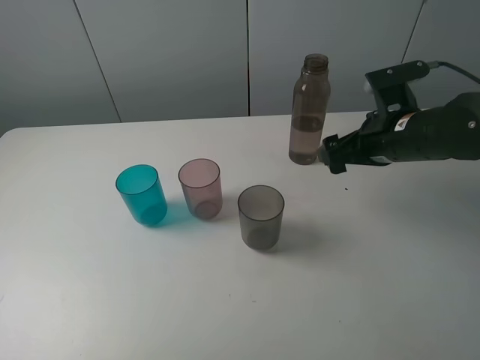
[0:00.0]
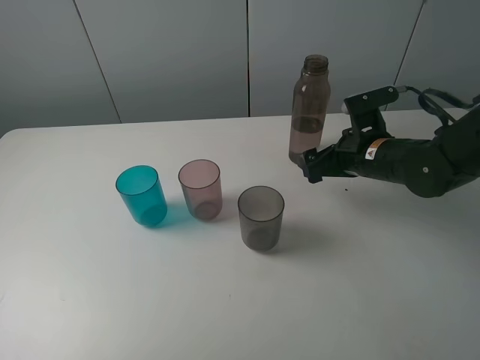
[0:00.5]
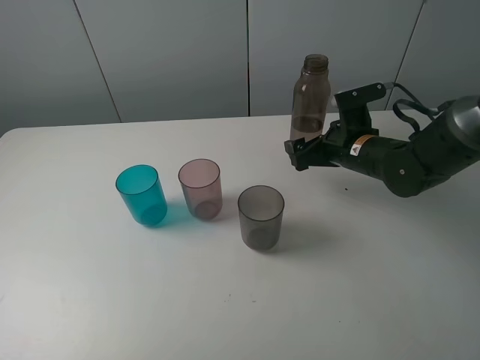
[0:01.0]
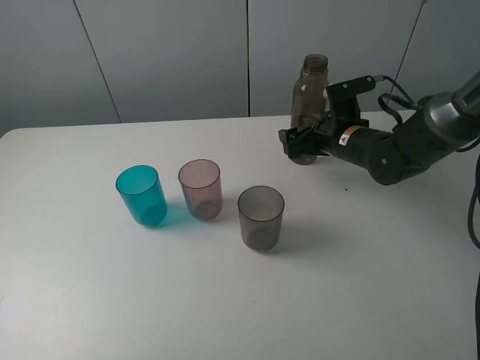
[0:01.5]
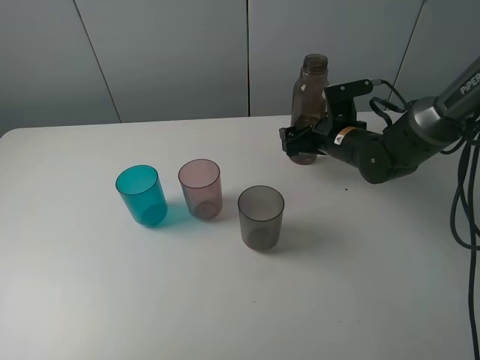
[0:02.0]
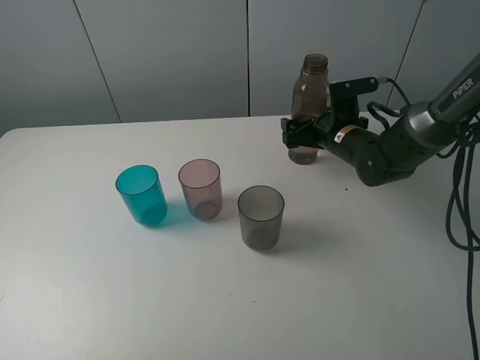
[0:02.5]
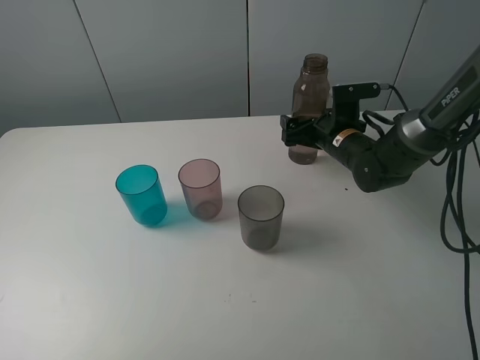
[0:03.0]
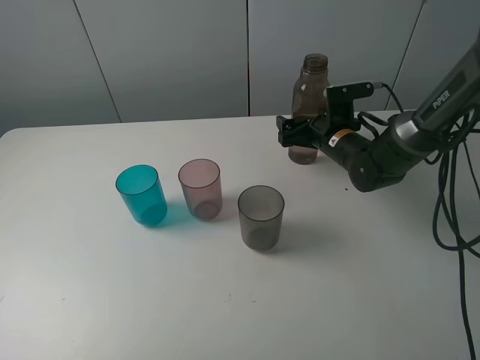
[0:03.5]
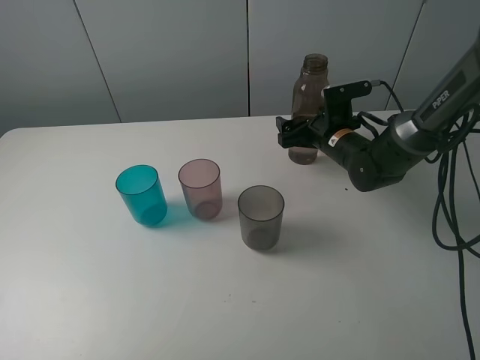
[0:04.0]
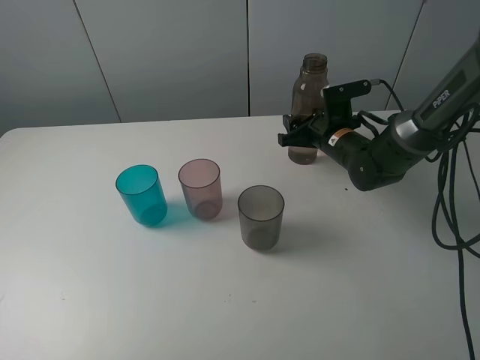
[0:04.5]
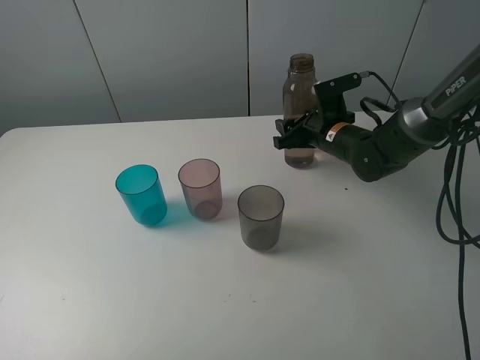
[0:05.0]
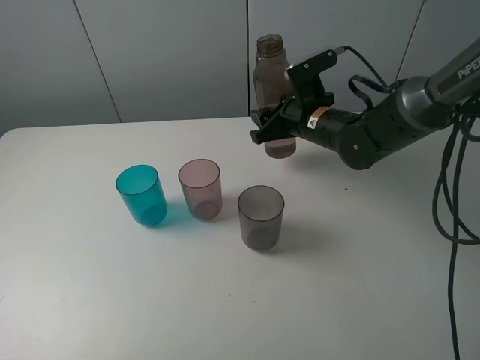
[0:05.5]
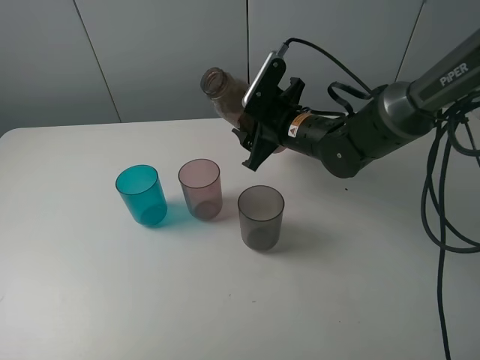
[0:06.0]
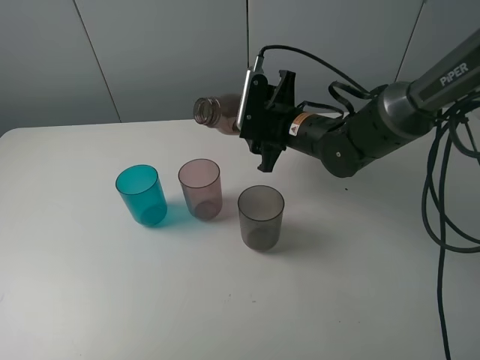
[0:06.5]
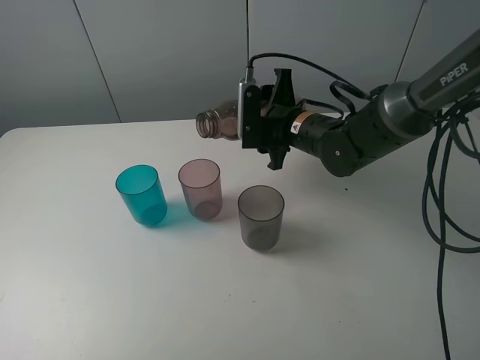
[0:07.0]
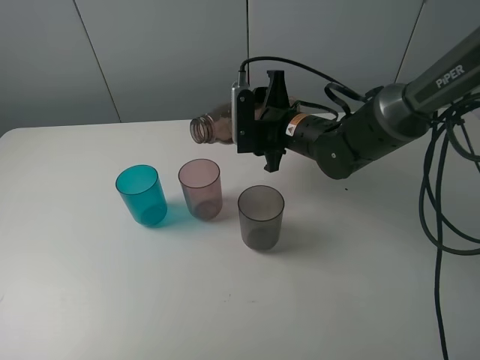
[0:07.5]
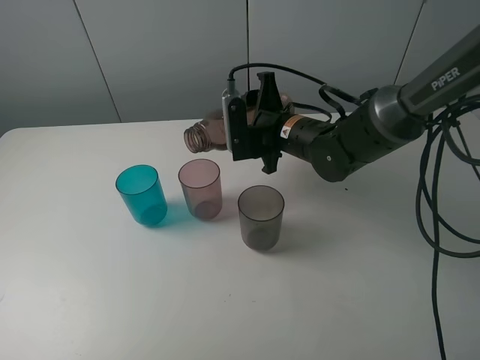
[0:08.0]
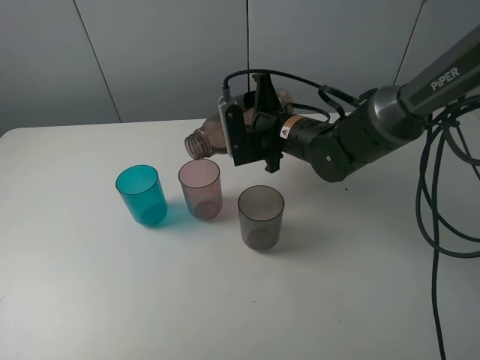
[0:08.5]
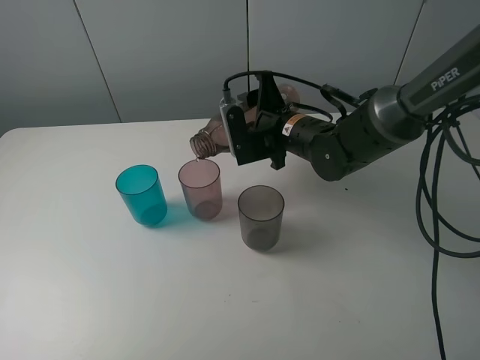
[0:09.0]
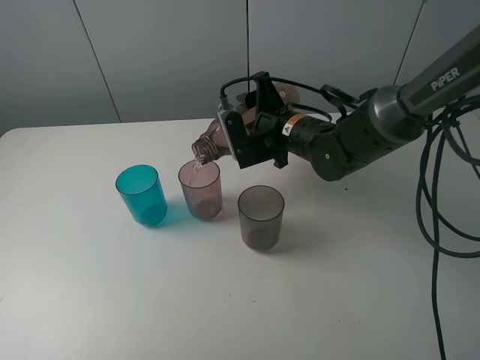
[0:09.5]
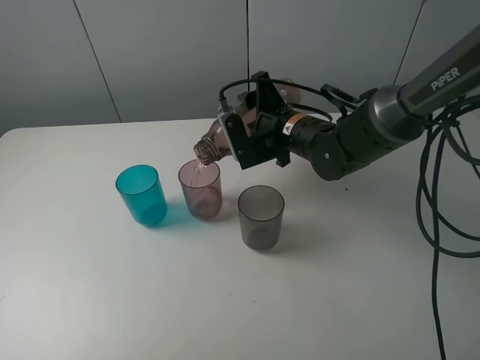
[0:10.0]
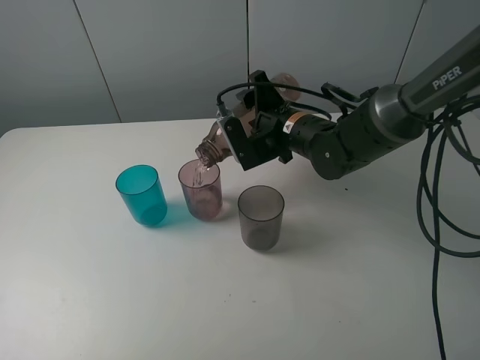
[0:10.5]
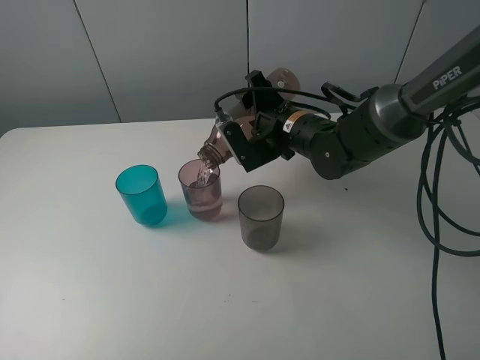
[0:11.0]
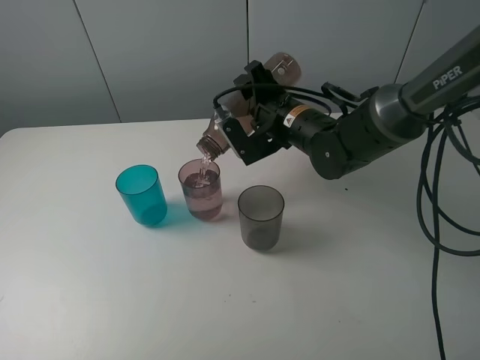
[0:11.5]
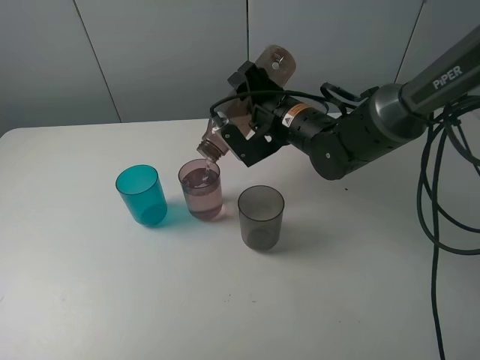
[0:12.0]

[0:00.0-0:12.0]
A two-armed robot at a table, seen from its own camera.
Task of the whole recording: pick up the bottle filled with water and pour water into the middle cup of the three cups.
Step, 0:00.0 to 0:04.5: Grasp the brown bottle with the right gripper.
0:00.0 to 0:02.0: The right gripper goes approximately 10 cm forward and downward.
0:02.0 to 0:04.0: The grippers stay close to where they were, moving slightly.
0:04.0 to 0:06.0: The right gripper moves to the left and upward, about 10 cm, and closes its fingers.
0:08.0 to 0:10.0: The grippers make only small movements.

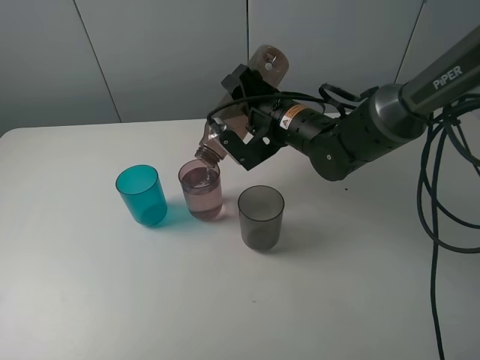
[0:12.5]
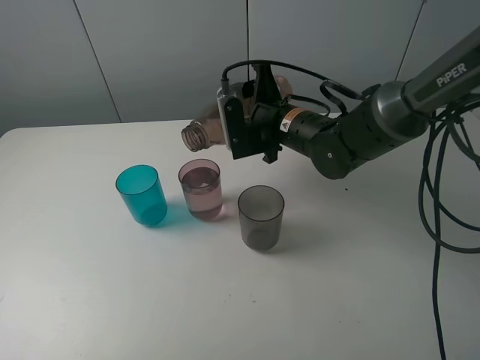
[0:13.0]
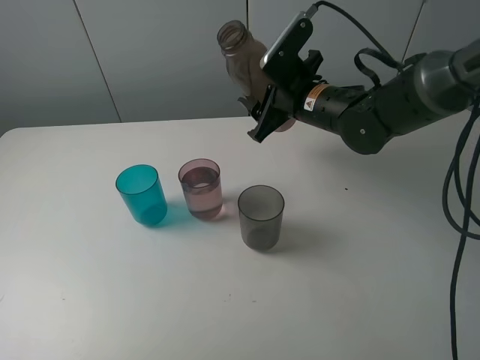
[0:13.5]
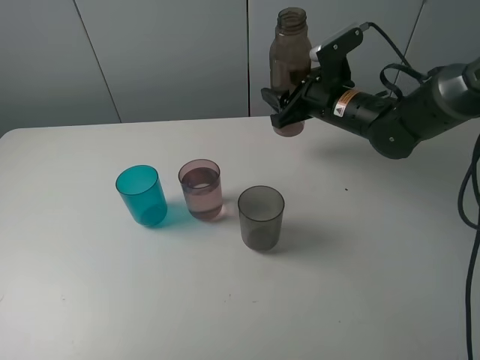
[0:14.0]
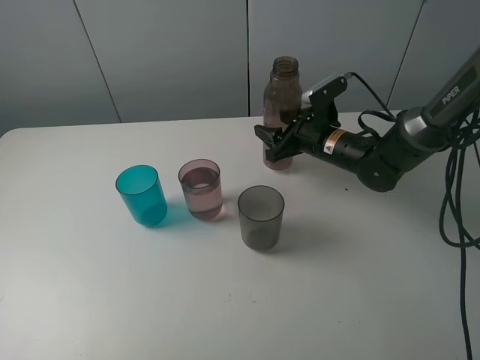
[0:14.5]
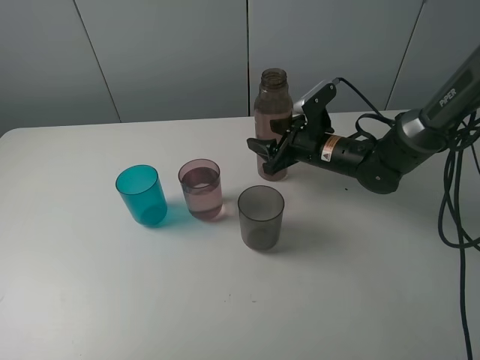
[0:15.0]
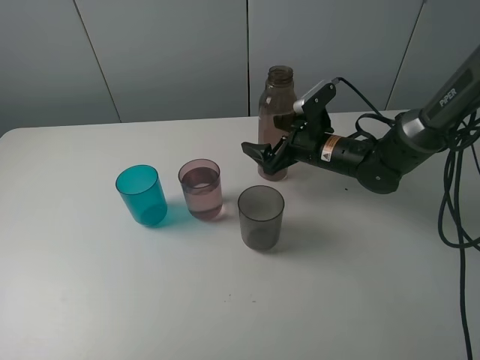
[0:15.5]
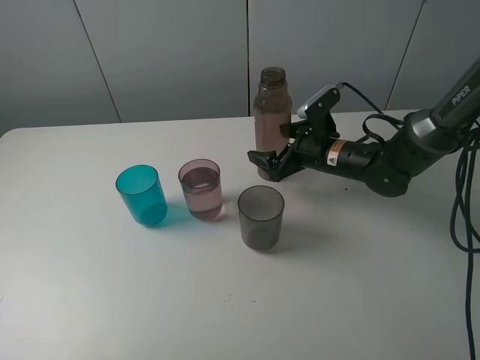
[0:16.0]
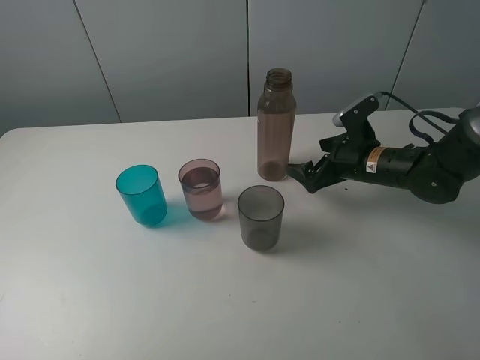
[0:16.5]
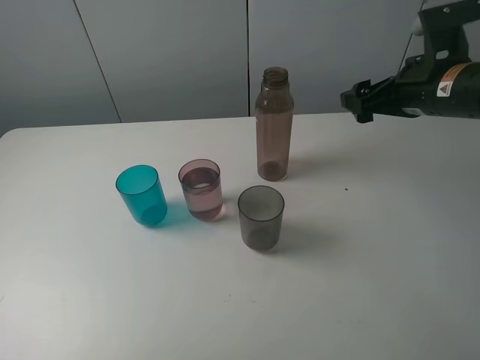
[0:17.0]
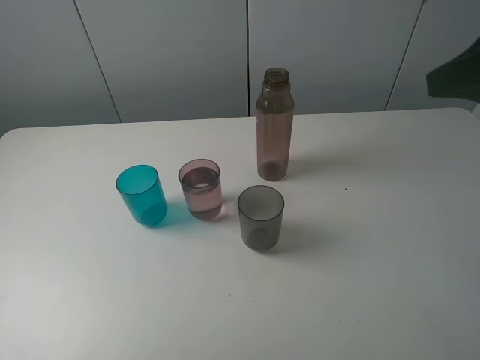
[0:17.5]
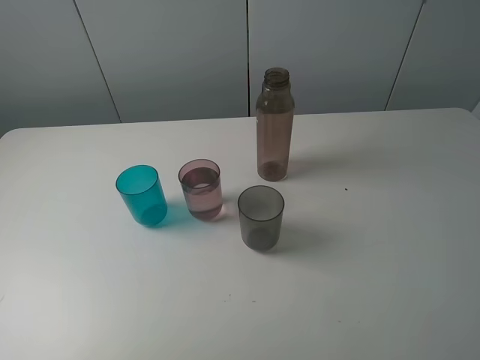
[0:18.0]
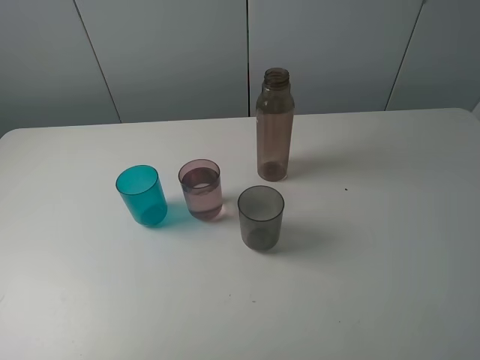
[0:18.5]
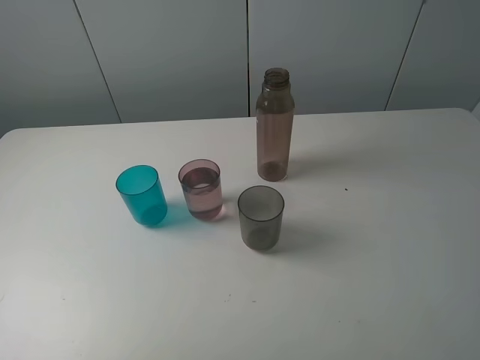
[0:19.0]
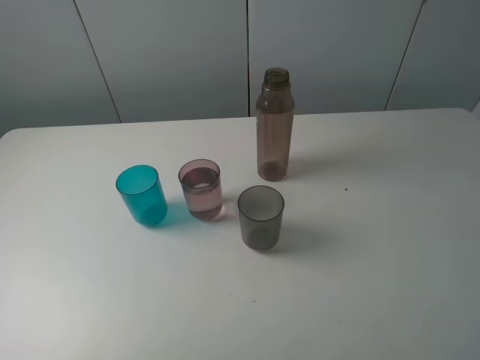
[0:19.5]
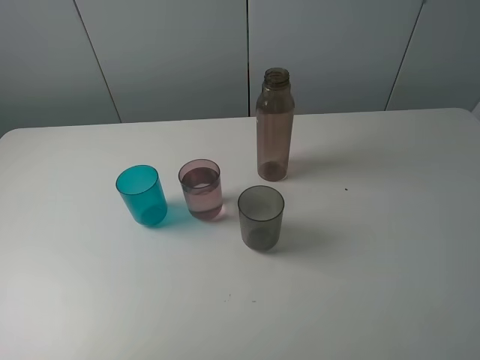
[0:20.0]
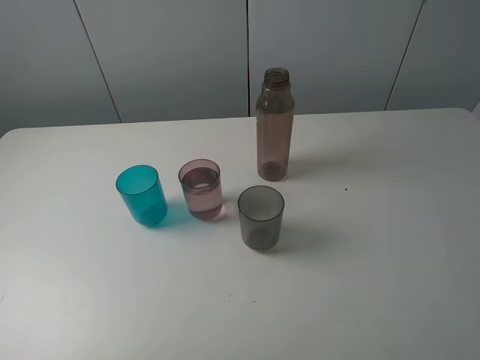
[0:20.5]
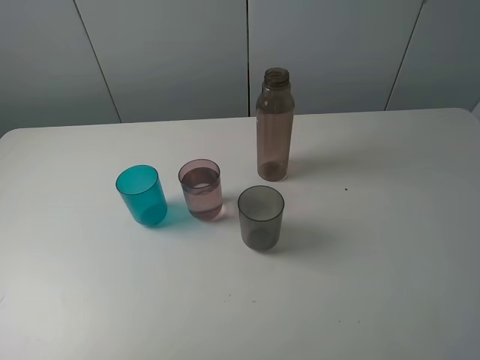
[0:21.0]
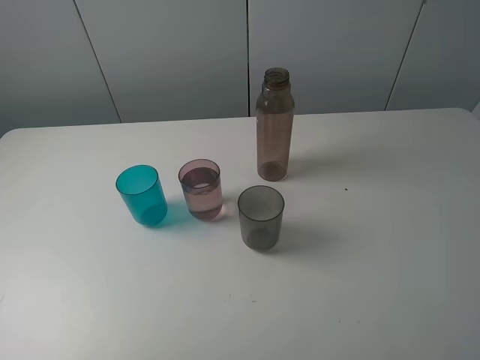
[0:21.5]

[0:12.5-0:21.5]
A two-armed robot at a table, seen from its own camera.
Task of the whole recording: pick up the bottle filled with water and pour water into the middle cup of the three cups.
Step, 0:14.0 to 0:17.0: Place the brown bottle with the right gripper.
0:12.5 to 0:14.5: The right gripper travels to the right and downward by approximately 10 cm.
0:14.5 to 0:17.0: The right gripper heads upward, to the right and backward, covering approximately 20 cm, and opens up.
0:17.0 to 0:19.5: The right gripper moves backward, approximately 30 cm.
0:19.5 to 0:21.5: Both grippers stay about where they are.

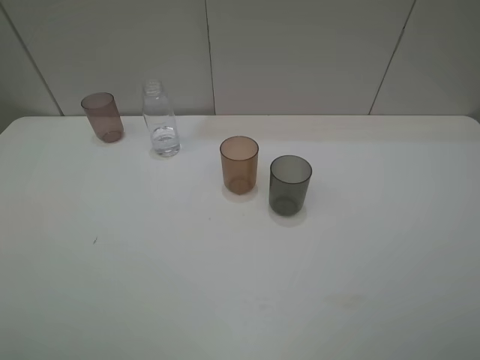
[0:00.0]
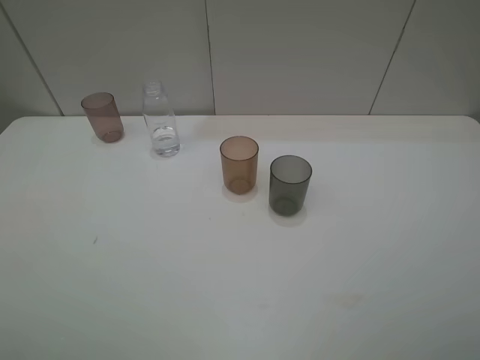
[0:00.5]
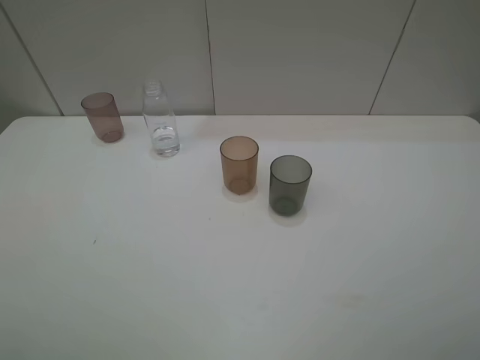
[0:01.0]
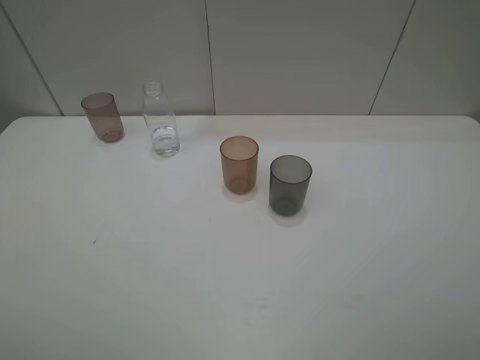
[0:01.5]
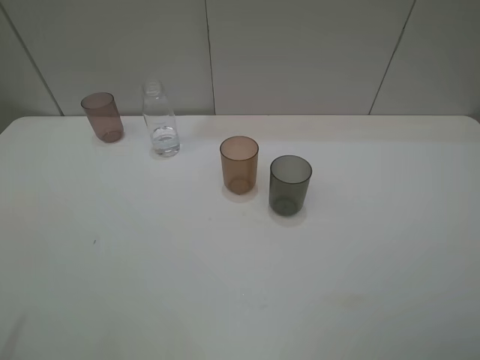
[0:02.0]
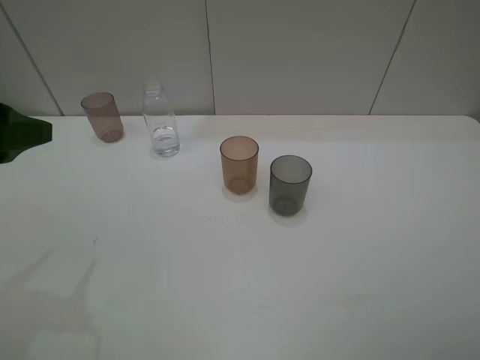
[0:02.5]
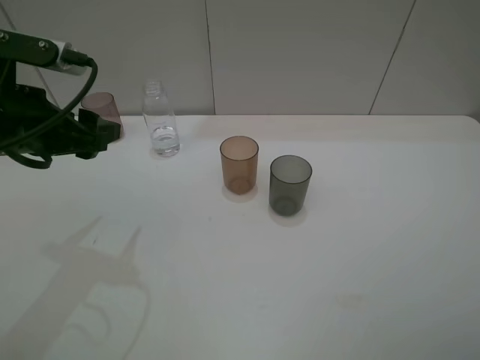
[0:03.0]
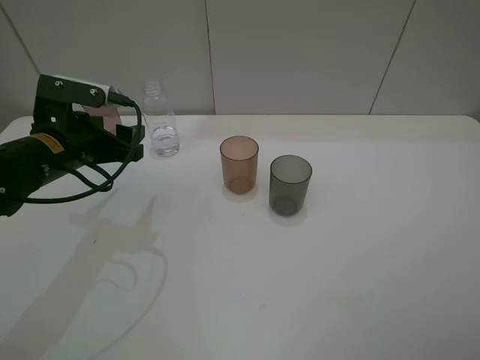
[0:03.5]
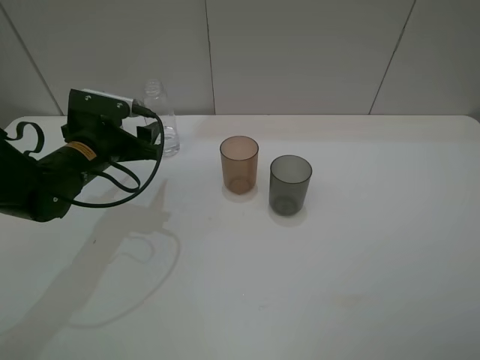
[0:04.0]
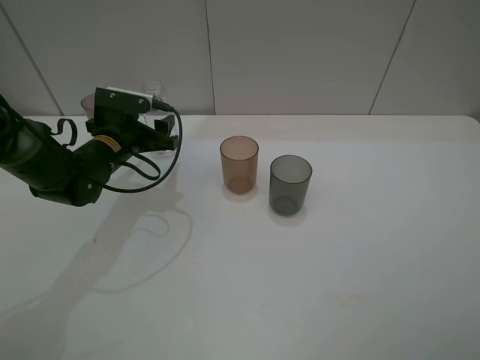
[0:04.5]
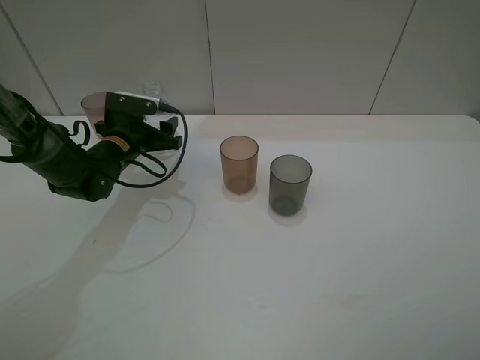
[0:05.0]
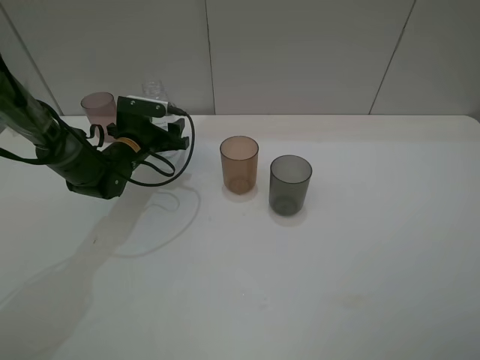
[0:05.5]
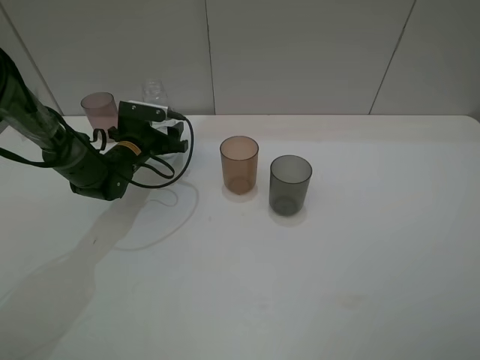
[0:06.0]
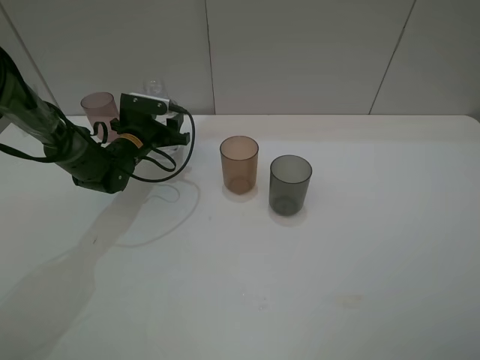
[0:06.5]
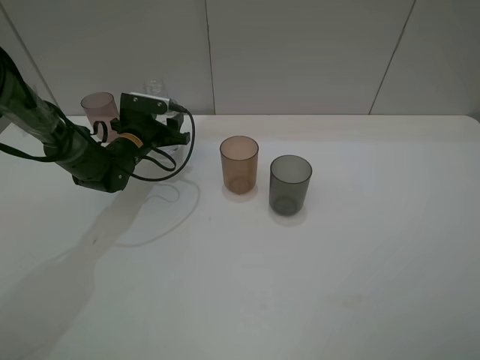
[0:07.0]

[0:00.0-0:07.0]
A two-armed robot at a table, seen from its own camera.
Task of the whole recording: pick up the bottle filled with water and pour water into the middle cup of the three cups.
Step, 0:00.0 to 0:06.5: Grasp the transparent bottle with the left gripper.
0:02.0 to 0:03.5: The left gripper moves forward, downward and to the right, roughly 25 cm.
0:03.5 to 0:05.0: The left gripper is displaced forward and downward by about 15 cm.
0:05.0 to 0:07.0: The left gripper closes up.
